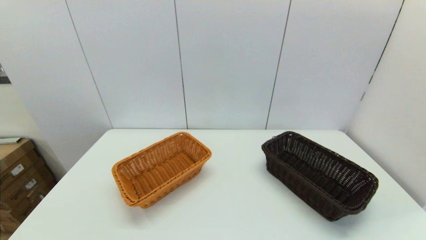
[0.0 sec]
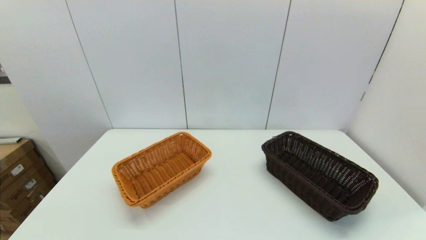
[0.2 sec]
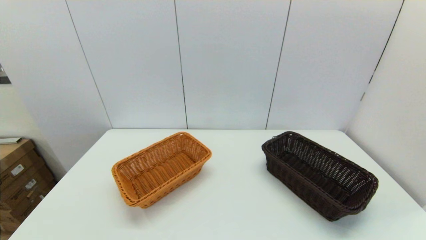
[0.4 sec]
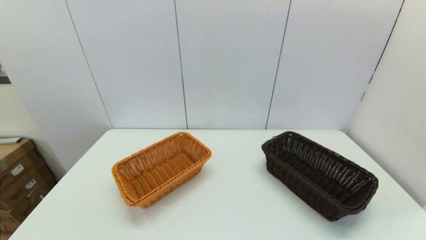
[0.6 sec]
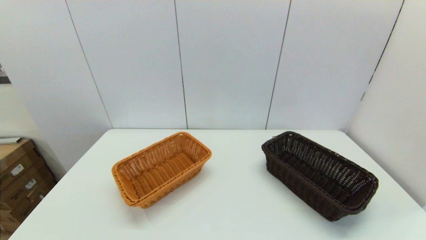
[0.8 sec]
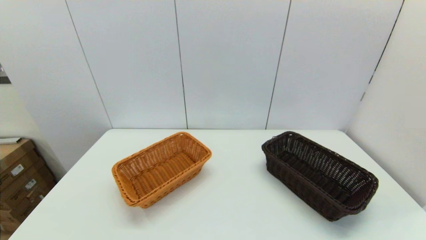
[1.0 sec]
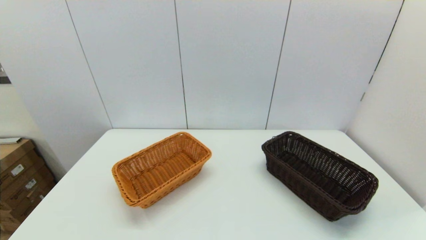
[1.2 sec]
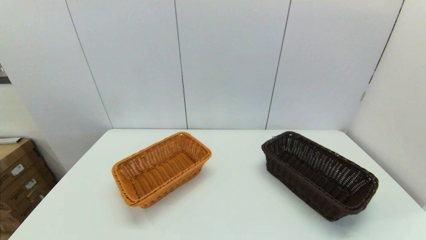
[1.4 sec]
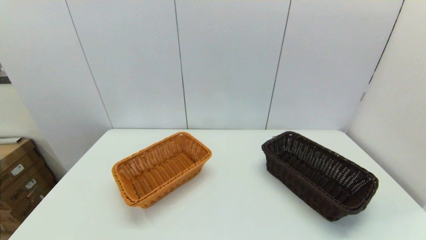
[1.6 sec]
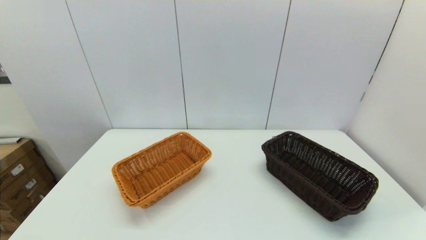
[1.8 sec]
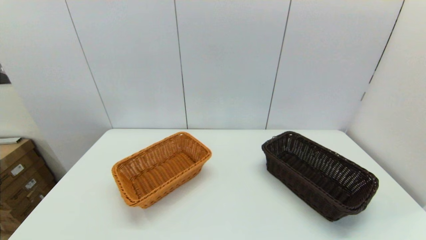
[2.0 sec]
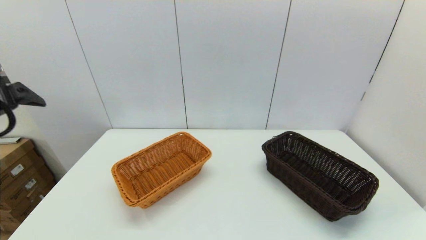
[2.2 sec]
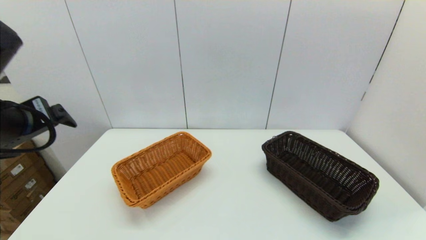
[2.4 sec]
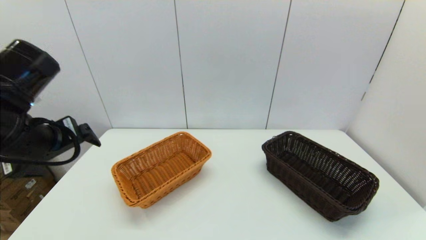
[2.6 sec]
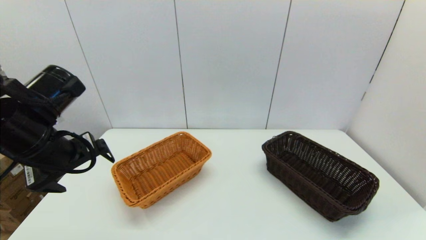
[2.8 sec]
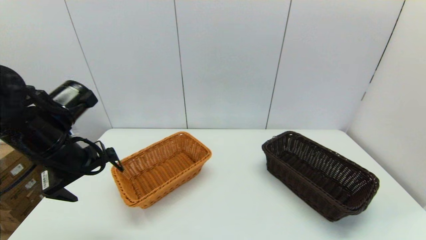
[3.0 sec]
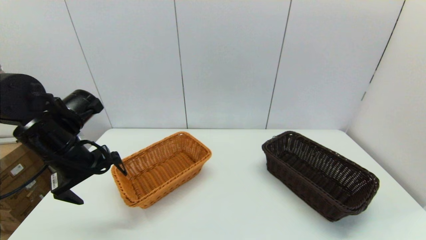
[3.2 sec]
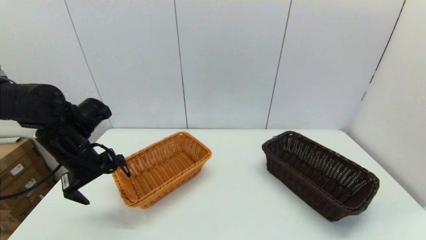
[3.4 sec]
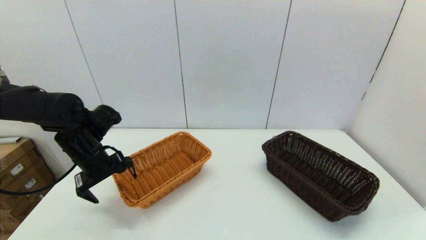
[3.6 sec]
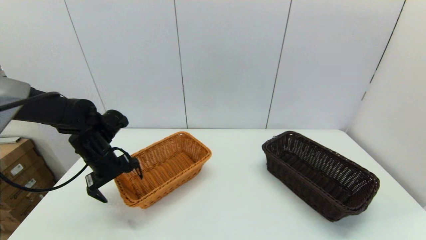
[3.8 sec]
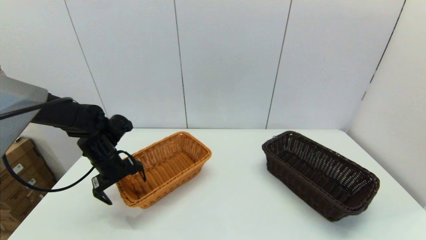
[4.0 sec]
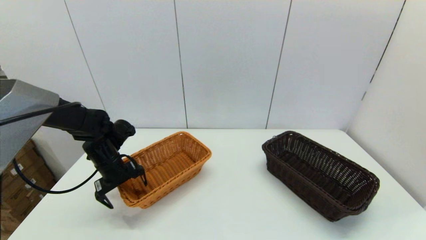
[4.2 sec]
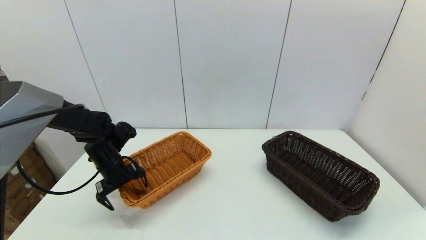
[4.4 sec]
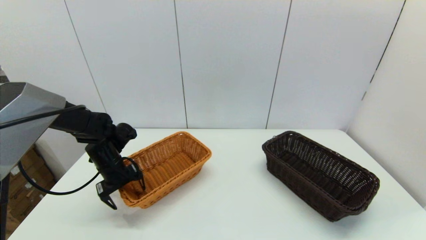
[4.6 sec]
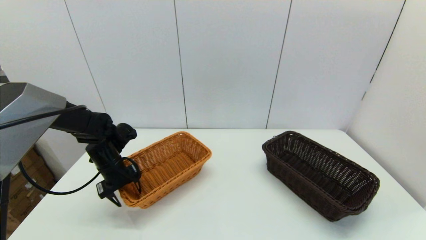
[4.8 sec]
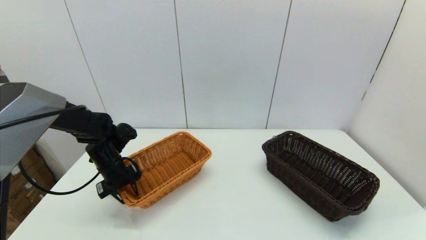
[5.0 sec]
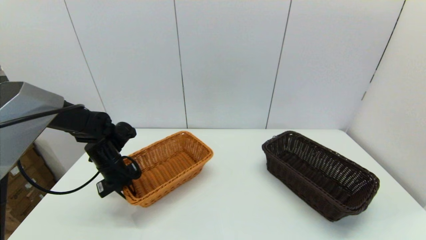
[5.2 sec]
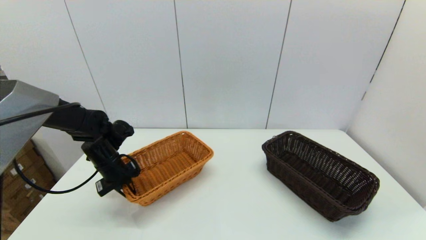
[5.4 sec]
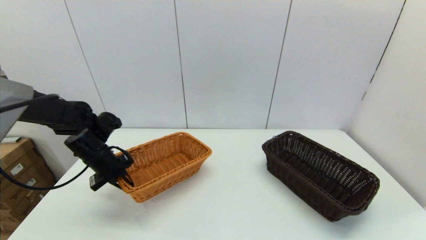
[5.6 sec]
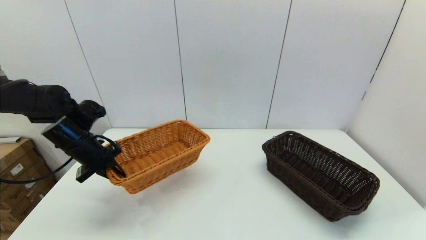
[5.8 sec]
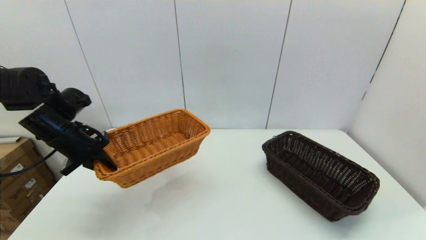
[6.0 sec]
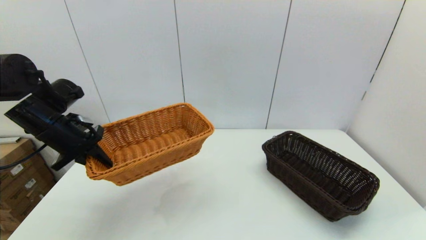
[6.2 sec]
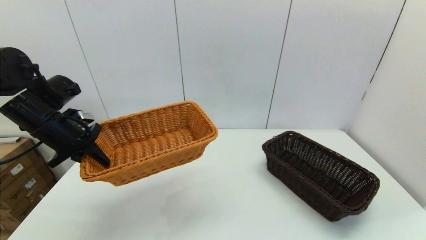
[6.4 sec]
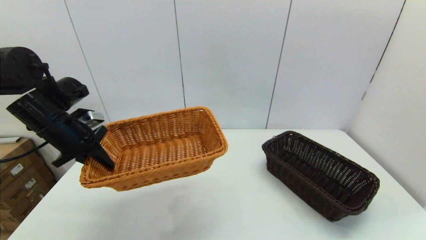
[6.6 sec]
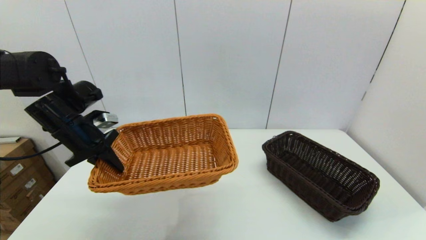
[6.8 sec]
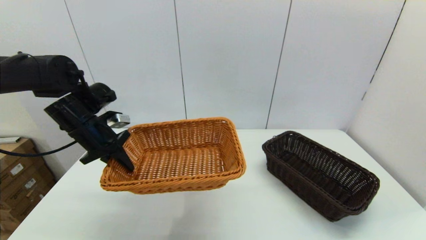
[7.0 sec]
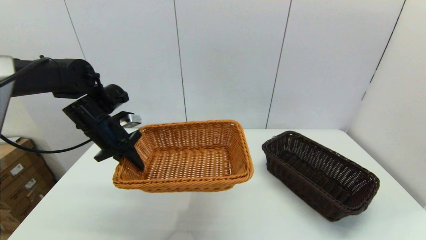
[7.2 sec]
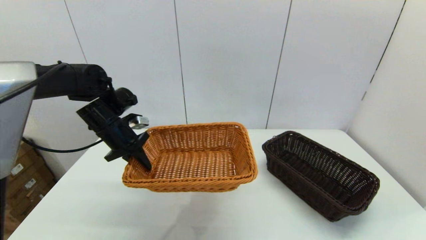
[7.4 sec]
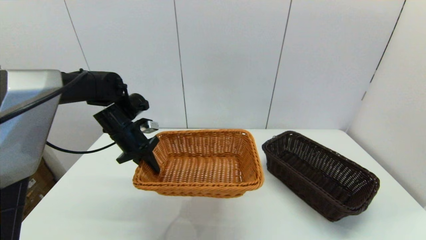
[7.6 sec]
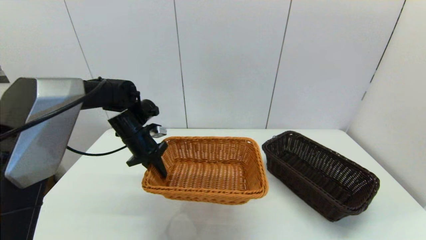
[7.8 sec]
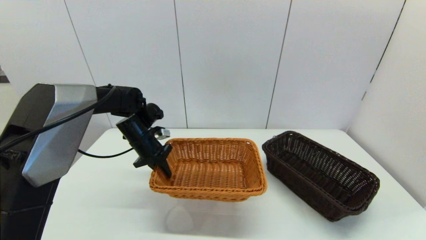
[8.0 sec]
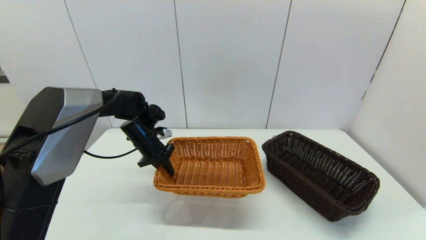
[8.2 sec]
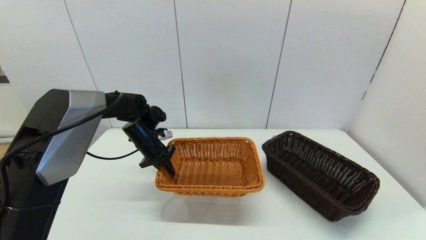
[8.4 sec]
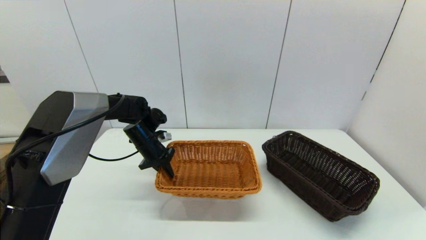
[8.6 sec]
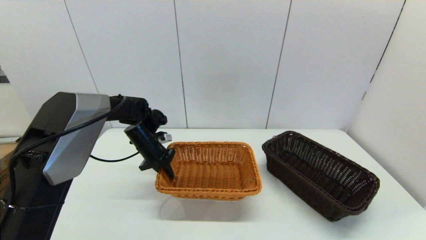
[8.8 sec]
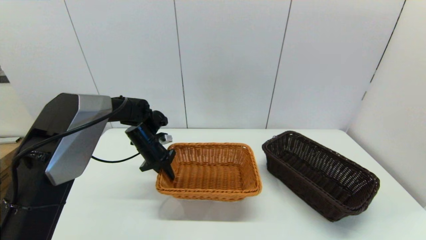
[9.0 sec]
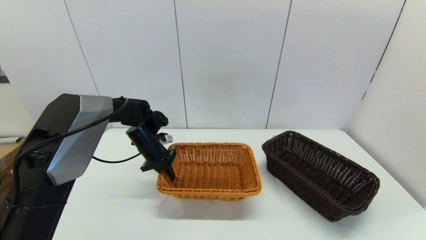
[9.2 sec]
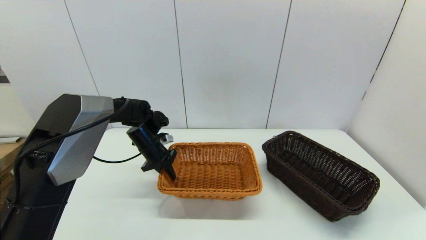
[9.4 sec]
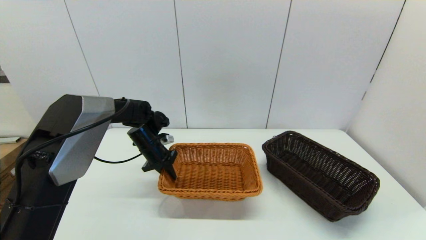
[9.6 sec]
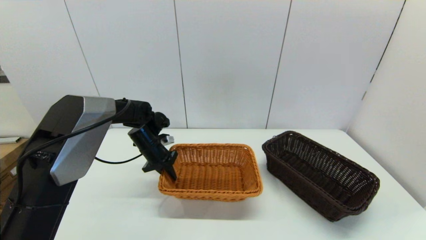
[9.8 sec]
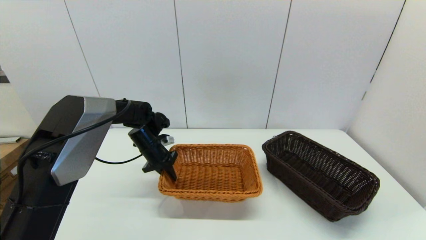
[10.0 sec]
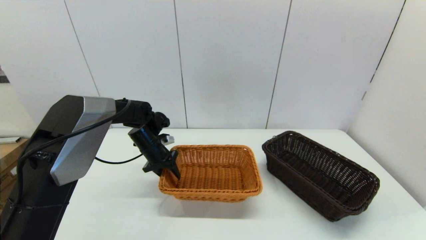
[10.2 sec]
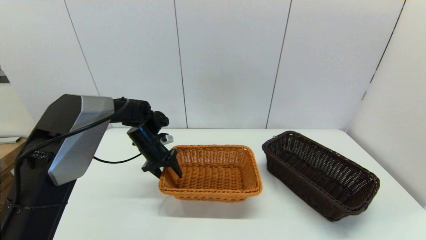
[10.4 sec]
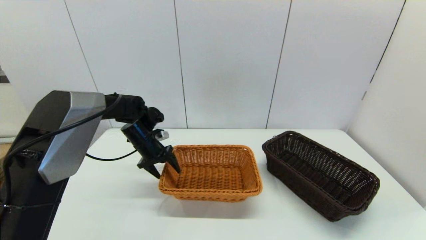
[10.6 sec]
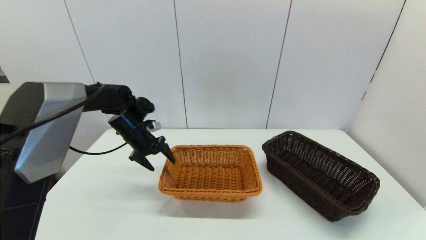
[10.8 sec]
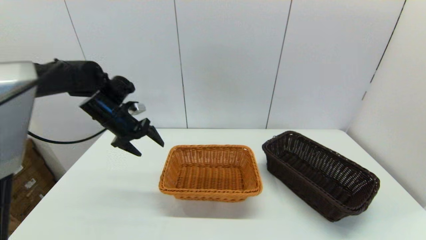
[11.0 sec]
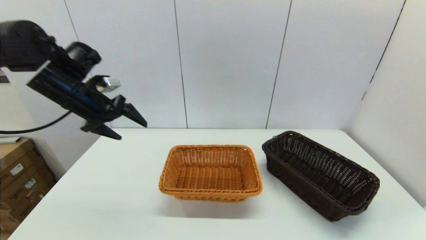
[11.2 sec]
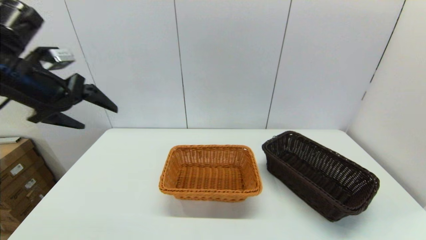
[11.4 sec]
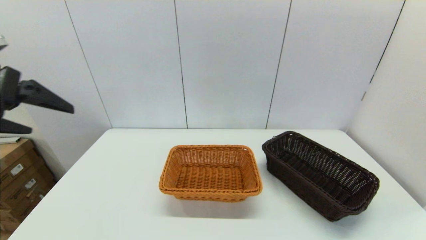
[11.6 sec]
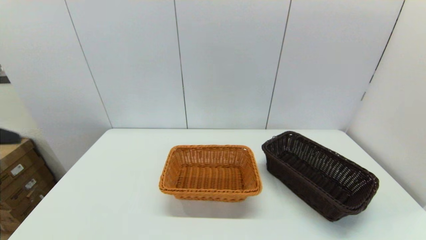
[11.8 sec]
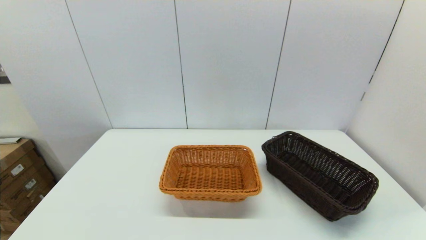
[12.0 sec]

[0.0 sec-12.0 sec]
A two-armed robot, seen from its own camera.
Task of the whole recording: stack a basket on top of another basket.
Step, 2.0 sec to 5.2 sec: Grasp the light basket with the left gripper.
Step, 5.4 sec to 10.8 sec: Place the light basket on the middle of the table with the left gripper.
1.6 sec to 3.0 sec: The left gripper shifts about 25 cm forward and downward.
3.0 sec to 4.4 sec: The left gripper goes approximately 15 cm downward and forward.
4.4 sec to 6.0 sec: The left gripper is displaced upward by about 10 cm, and closes.
6.0 sec to 7.6 sec: The left gripper moves to the right and forward, approximately 10 cm.
7.6 sec to 9.0 sec: The left gripper shifts about 10 cm downward.
9.0 sec to 10.4 sec: The left gripper opens its fingers.
10.4 sec to 12.0 sec: The left gripper shifts about 50 cm backward and upward, and opens up.

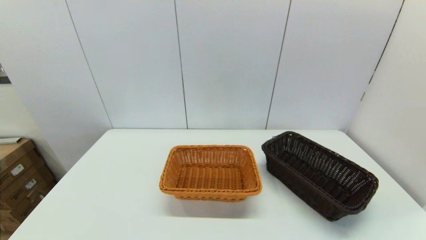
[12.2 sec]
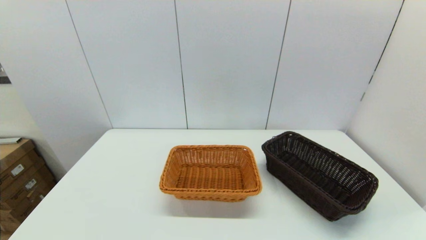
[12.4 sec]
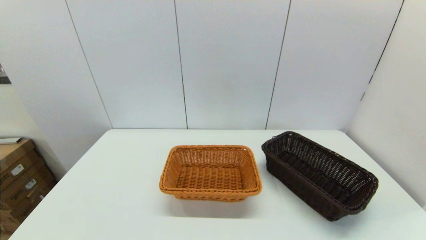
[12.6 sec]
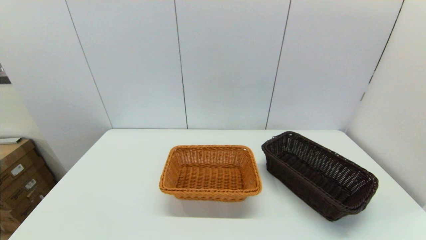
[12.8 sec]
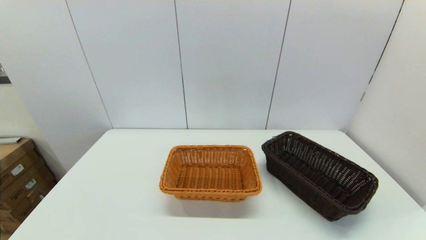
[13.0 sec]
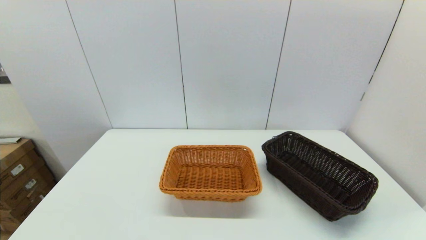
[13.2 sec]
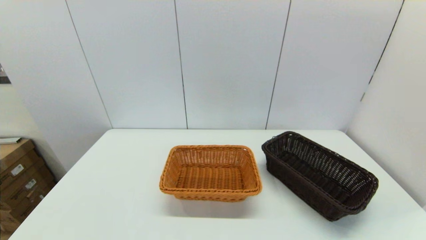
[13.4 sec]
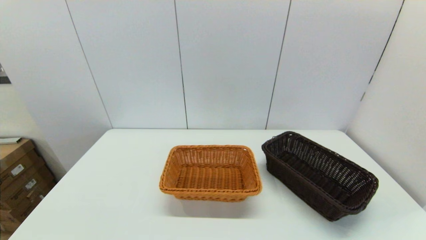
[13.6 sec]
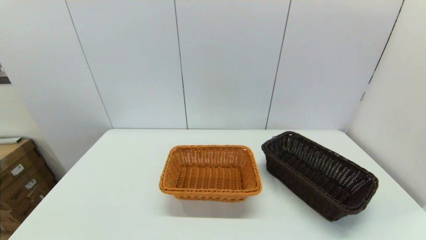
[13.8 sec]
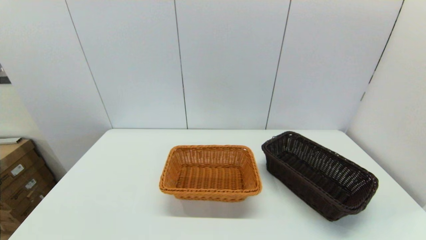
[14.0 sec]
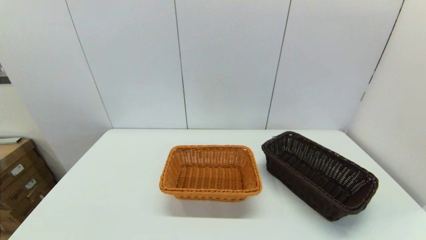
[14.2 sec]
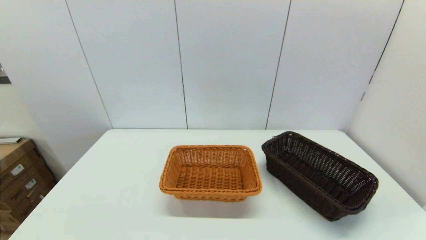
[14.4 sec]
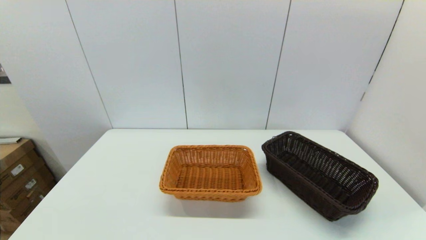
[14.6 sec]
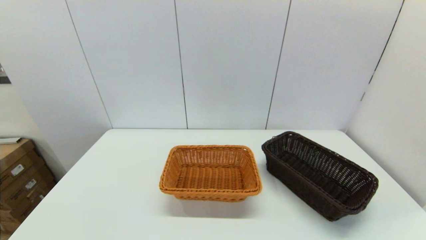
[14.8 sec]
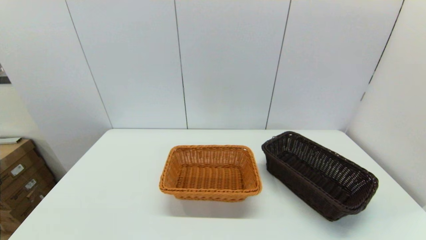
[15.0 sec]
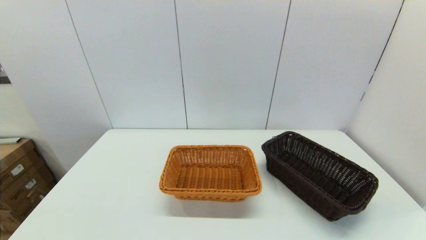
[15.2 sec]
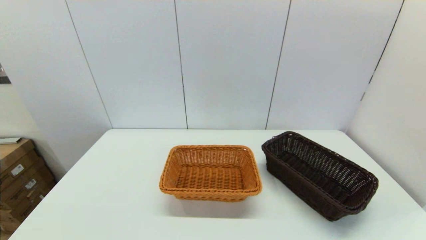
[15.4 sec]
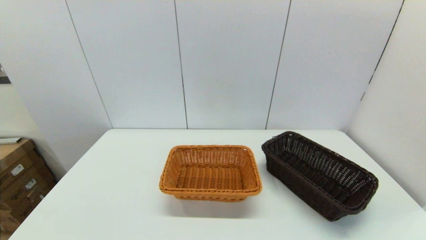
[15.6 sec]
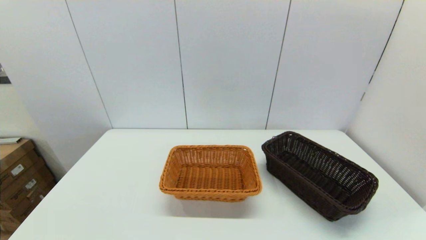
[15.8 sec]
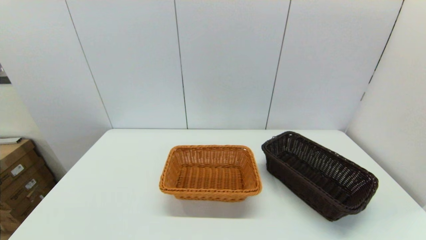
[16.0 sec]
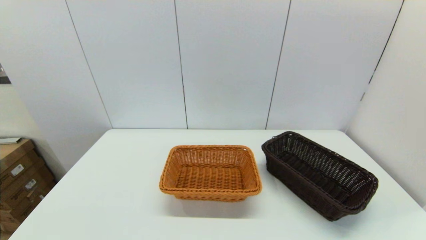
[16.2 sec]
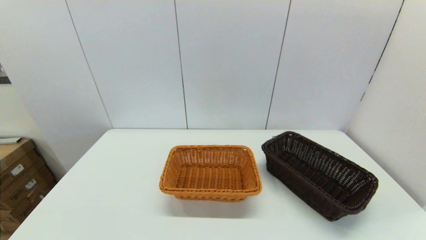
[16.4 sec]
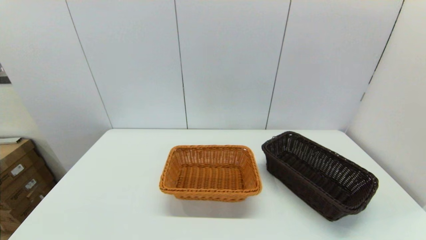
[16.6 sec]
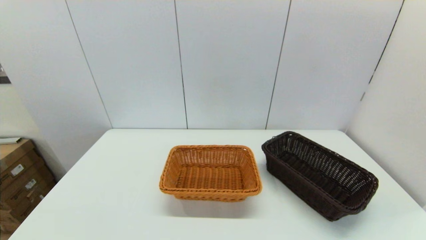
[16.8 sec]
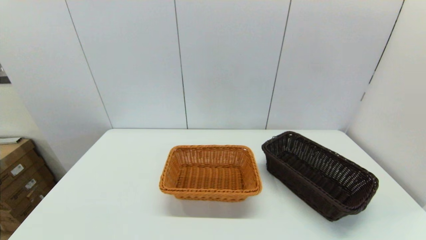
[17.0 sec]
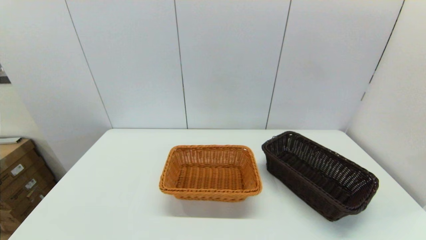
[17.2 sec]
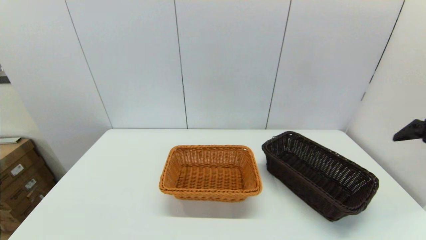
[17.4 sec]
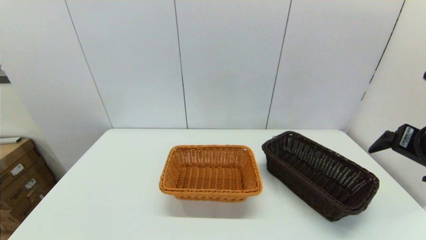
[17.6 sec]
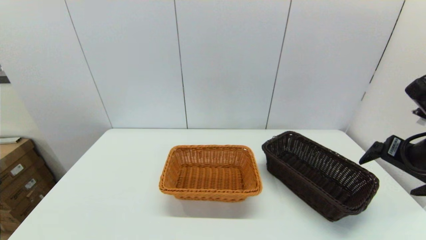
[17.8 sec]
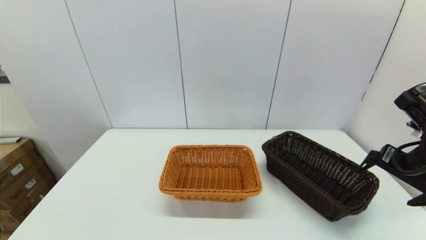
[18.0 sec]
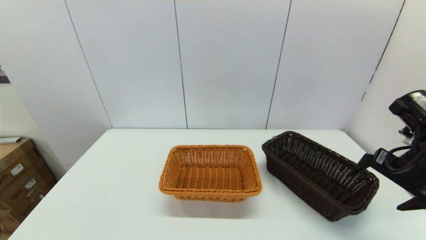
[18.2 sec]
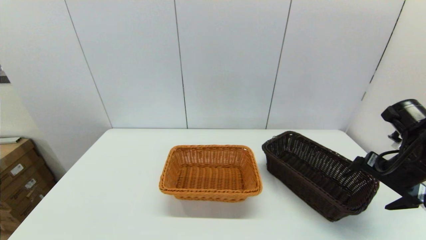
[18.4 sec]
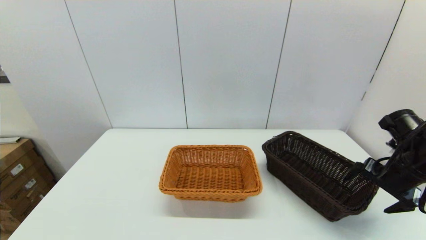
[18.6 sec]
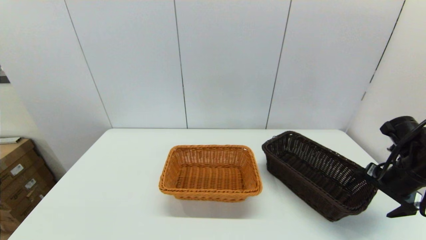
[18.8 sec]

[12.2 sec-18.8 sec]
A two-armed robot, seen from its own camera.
Task of the whole recording: stack a basket on top of another basket.
13.8 sec to 15.4 sec: The two grippers keep their place.
17.2 sec to 18.8 sec: The right gripper goes approximately 20 cm downward and forward.
